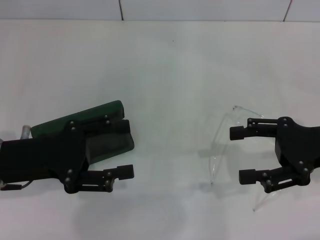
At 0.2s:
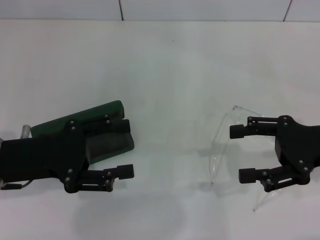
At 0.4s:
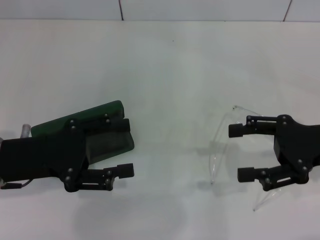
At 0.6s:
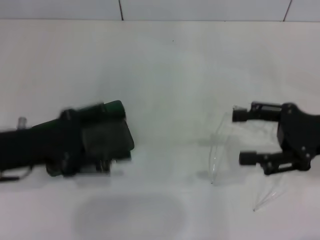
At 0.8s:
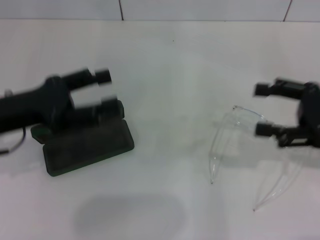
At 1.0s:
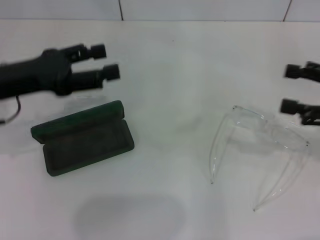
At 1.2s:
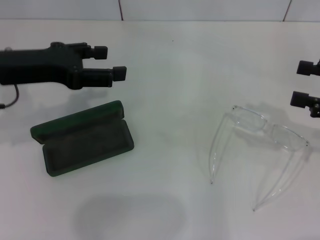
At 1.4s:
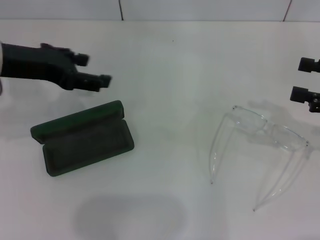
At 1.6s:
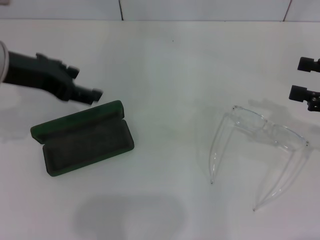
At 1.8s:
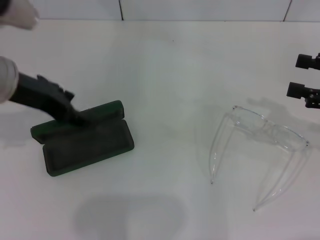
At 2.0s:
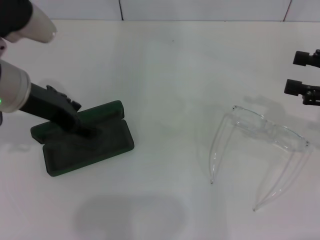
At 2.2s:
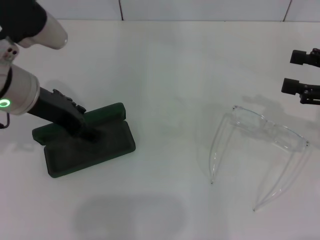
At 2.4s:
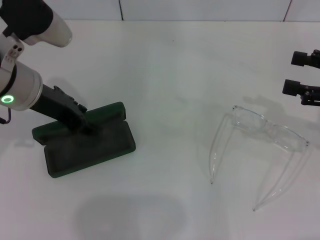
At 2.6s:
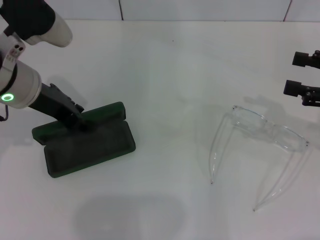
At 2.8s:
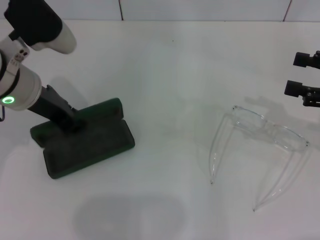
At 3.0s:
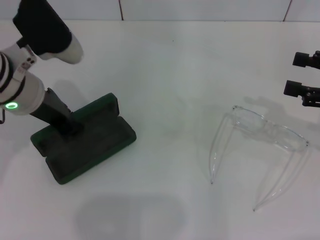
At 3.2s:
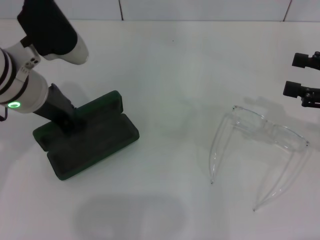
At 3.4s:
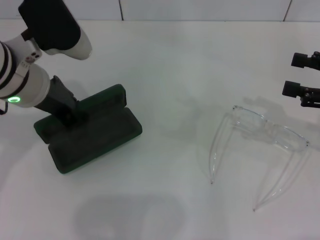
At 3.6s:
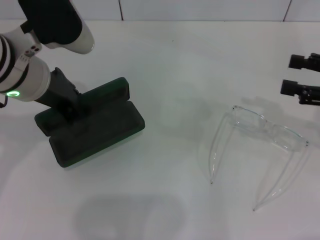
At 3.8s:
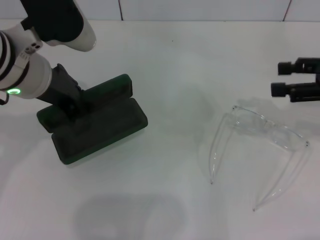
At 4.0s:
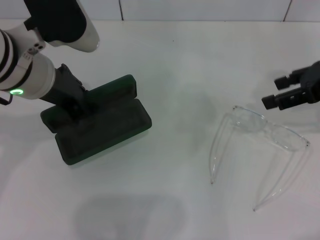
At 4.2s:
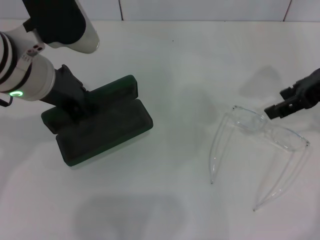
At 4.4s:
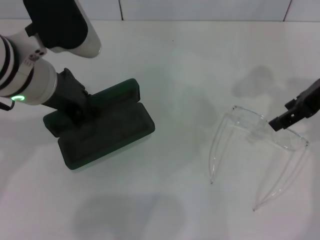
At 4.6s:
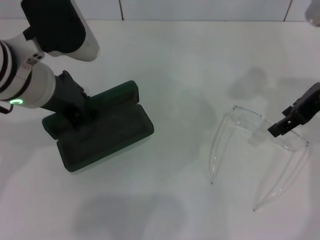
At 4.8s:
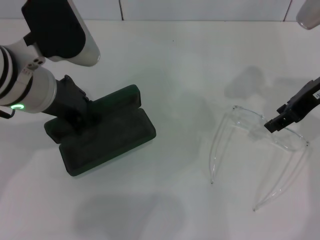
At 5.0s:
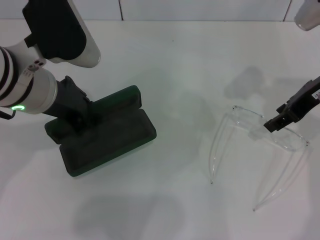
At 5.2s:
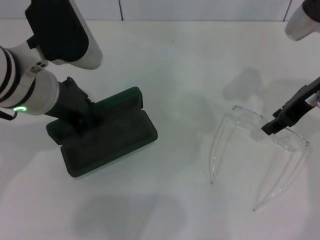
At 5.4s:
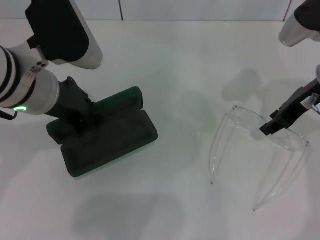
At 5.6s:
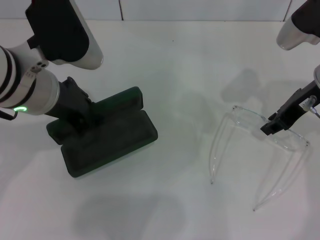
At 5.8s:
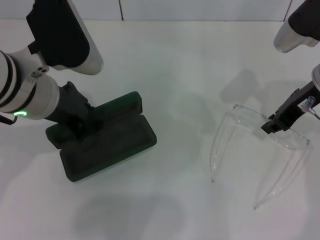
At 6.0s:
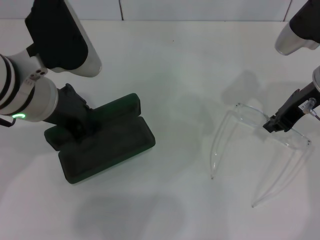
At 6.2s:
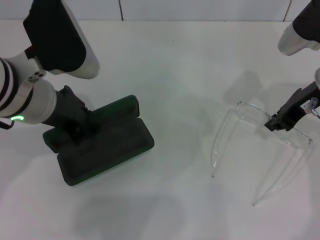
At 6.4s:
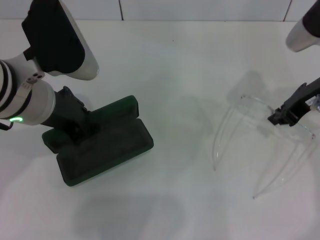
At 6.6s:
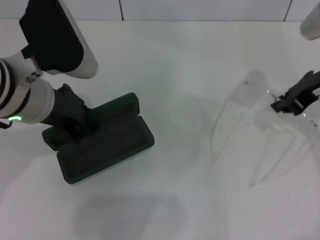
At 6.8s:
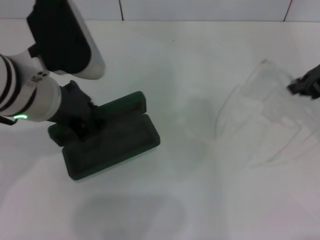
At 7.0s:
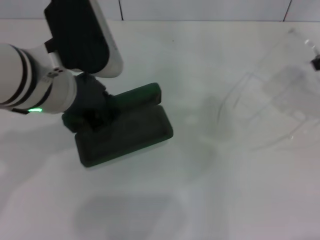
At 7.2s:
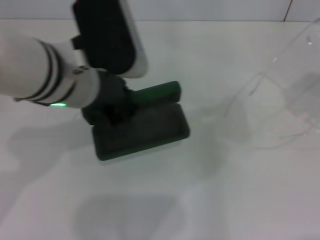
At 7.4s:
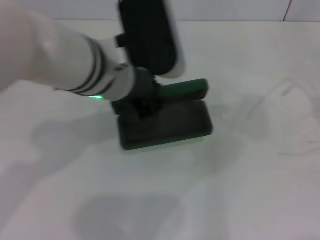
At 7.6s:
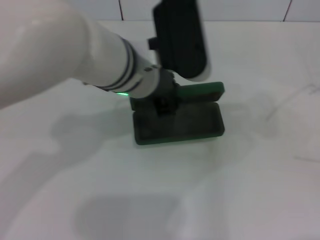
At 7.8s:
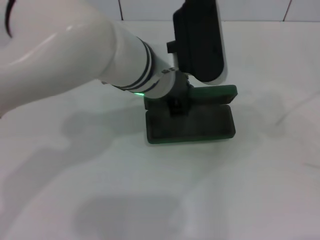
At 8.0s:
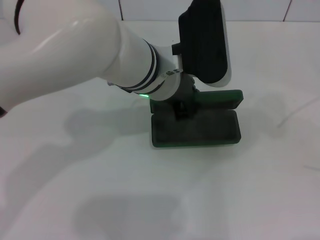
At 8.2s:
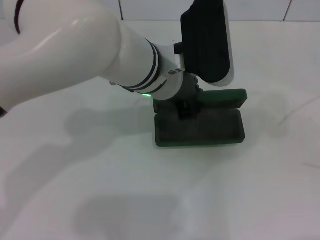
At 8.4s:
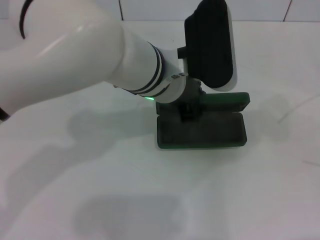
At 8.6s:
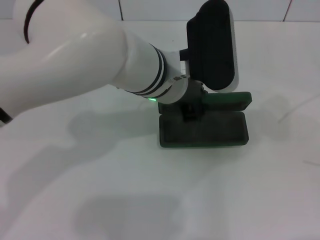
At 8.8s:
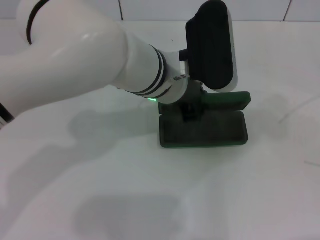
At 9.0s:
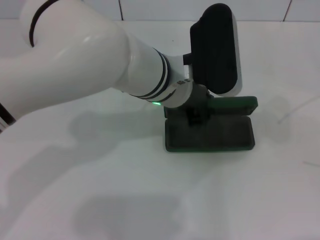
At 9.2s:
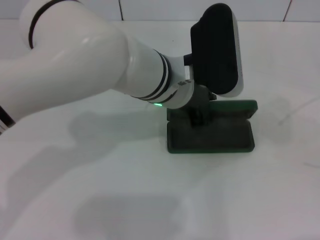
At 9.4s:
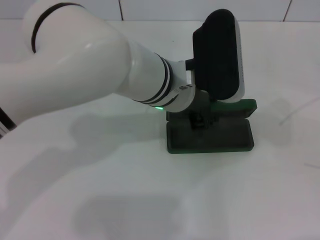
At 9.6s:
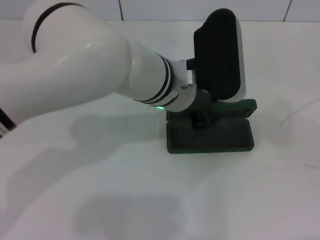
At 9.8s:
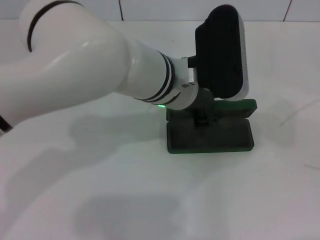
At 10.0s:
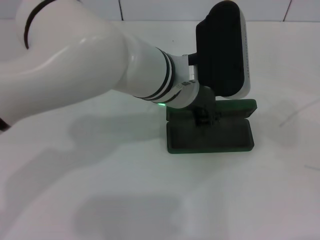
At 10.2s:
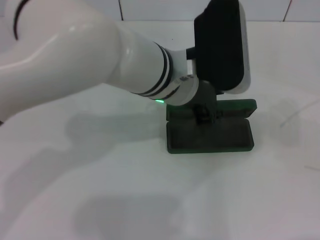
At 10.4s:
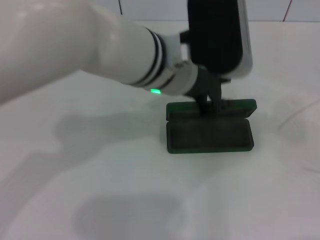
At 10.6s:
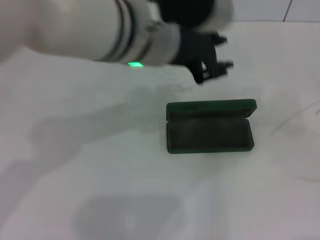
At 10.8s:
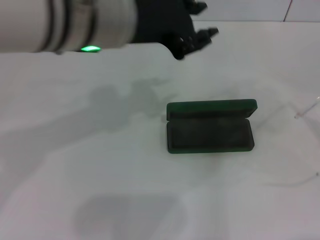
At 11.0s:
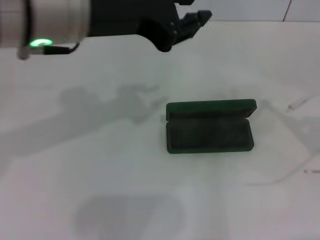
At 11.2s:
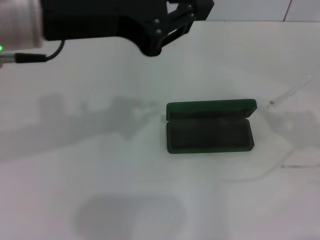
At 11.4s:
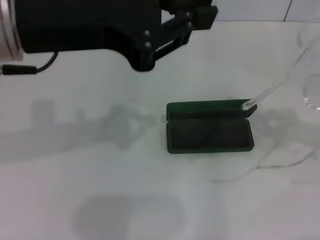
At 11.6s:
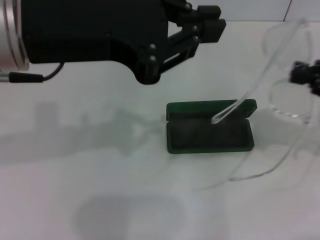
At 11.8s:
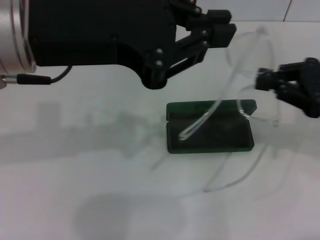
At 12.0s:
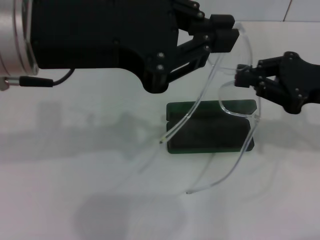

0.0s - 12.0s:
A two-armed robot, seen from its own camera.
Step, 0.0s - 2.8s: Grab the glasses case with your left hand.
Step, 3.2s - 5.8s: Grab the eyeglass frame with your right hand.
Step, 6.0s - 9.4s: Place the glasses case in the center of the table with your left hand.
0.0s - 1.6s: The left gripper goes some 15 cm upward and forward, while the right gripper is displaced to the right by about 5 cm.
1.6s - 3.0s: The left gripper moves some 5 cm, and closes.
3.0s - 4.4s: The right gripper heads to the left, forward and upward, covering some 15 cm. The left gripper ends up some 5 cm from where it was.
4.4s - 6.0s: The right gripper moves downward, approximately 5 cm, and closes up.
6.0s - 7.6s: The right gripper shifts roughly 25 cm to the right, backward and upward, while the left gripper travels to the right by about 10 cm.
9.0s - 10.4s: The left gripper shifts by about 5 cm.
10.4s - 12.0s: The right gripper goes roughly 20 cm to the left and forward; the left gripper goes approximately 15 cm to the left, upward and backward, and closes.

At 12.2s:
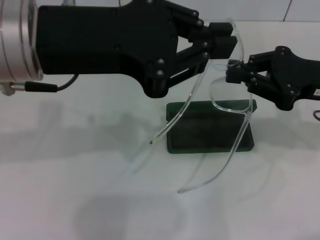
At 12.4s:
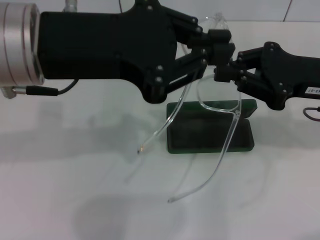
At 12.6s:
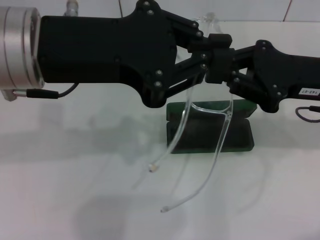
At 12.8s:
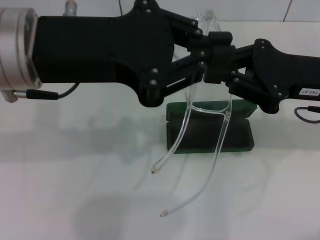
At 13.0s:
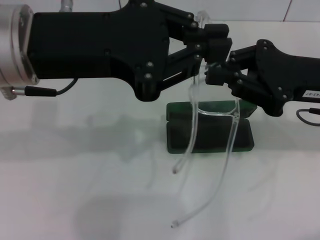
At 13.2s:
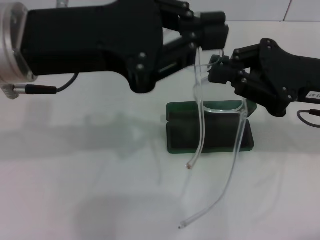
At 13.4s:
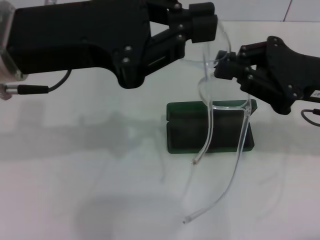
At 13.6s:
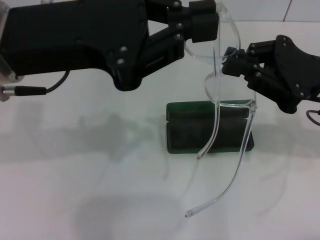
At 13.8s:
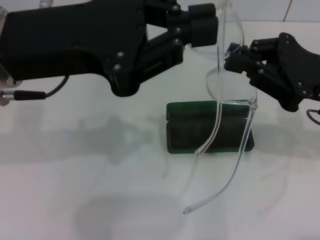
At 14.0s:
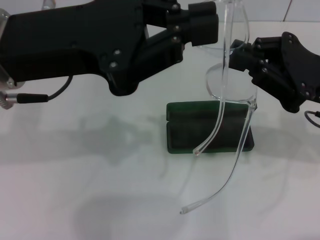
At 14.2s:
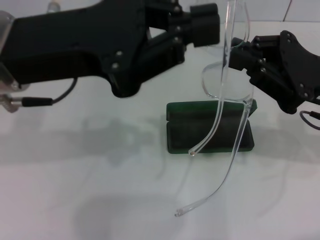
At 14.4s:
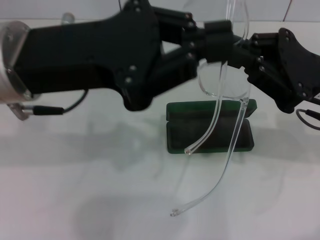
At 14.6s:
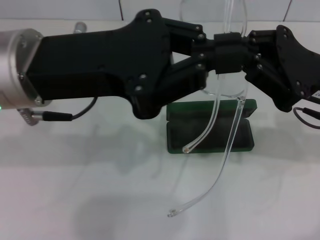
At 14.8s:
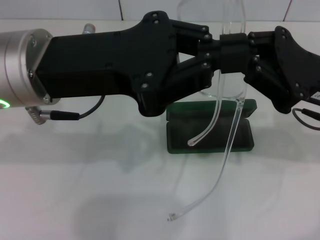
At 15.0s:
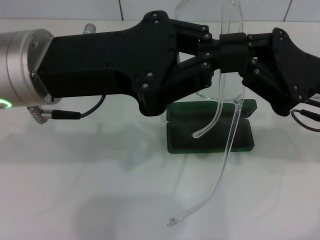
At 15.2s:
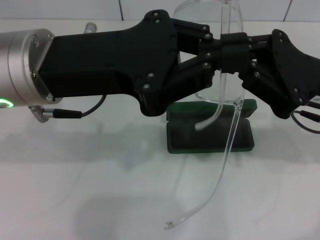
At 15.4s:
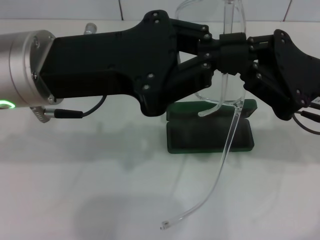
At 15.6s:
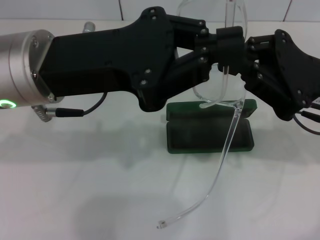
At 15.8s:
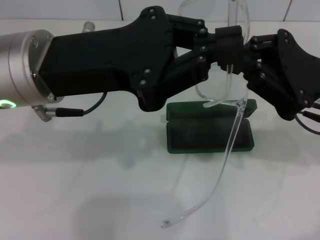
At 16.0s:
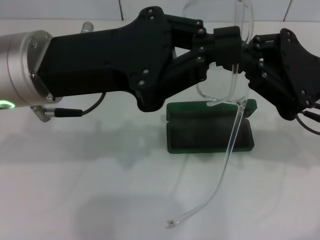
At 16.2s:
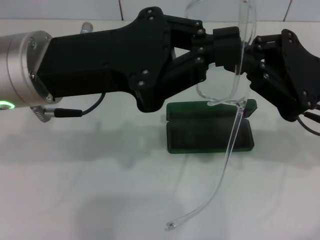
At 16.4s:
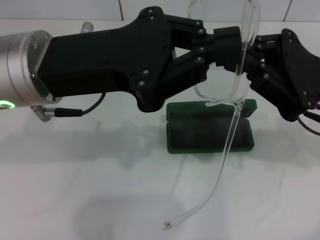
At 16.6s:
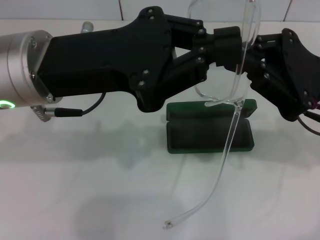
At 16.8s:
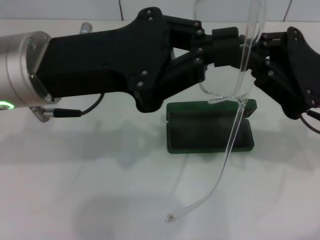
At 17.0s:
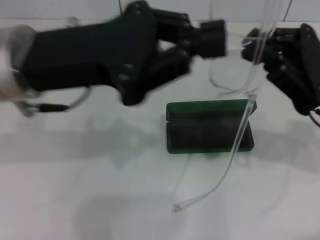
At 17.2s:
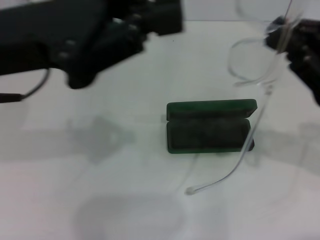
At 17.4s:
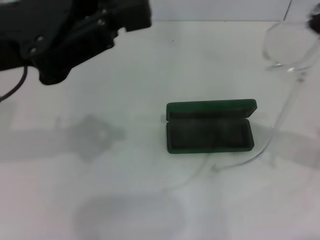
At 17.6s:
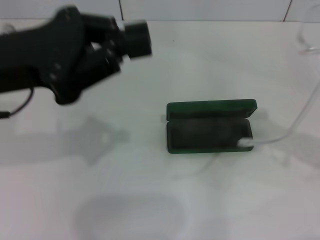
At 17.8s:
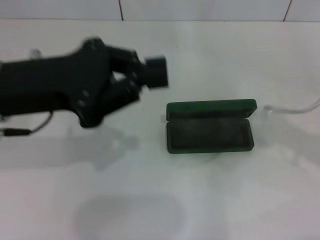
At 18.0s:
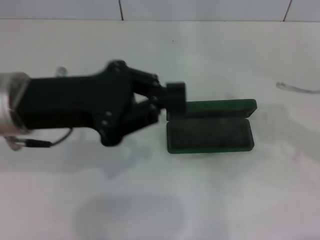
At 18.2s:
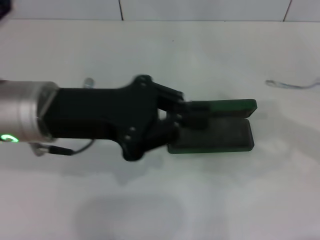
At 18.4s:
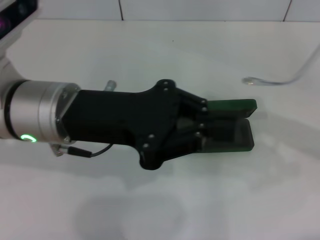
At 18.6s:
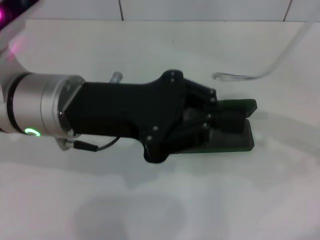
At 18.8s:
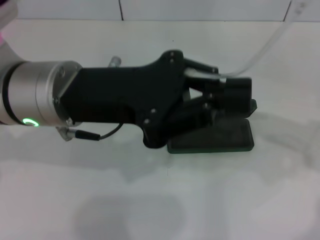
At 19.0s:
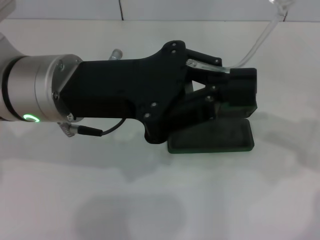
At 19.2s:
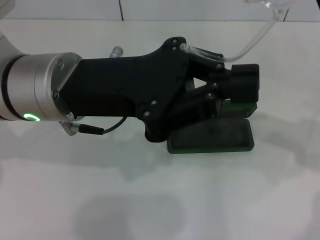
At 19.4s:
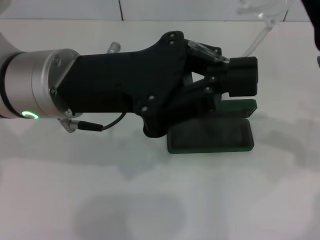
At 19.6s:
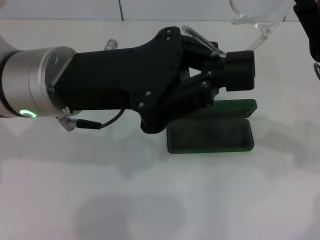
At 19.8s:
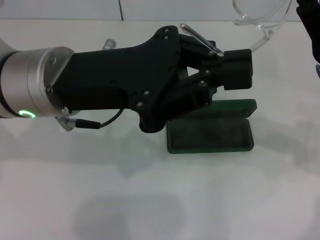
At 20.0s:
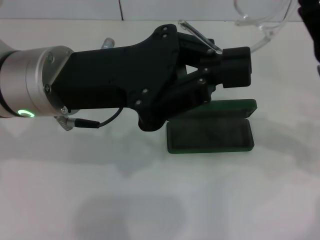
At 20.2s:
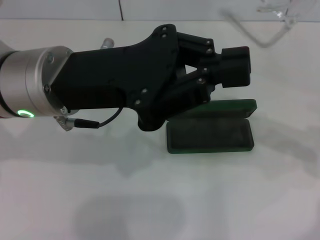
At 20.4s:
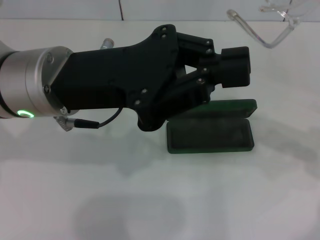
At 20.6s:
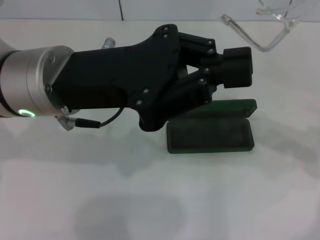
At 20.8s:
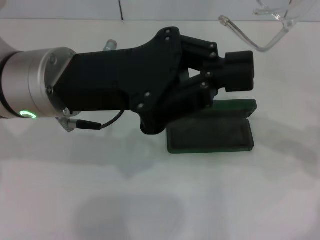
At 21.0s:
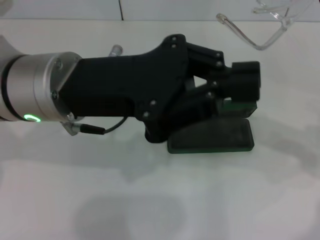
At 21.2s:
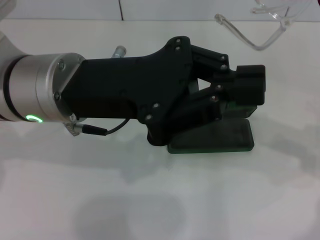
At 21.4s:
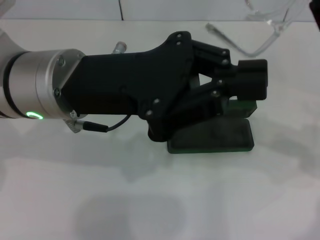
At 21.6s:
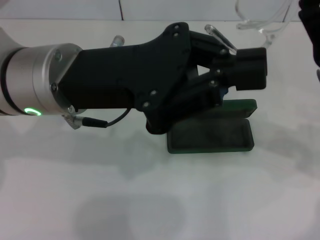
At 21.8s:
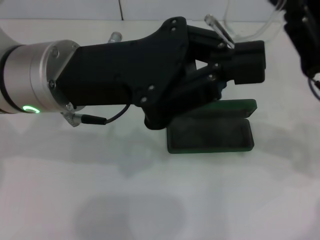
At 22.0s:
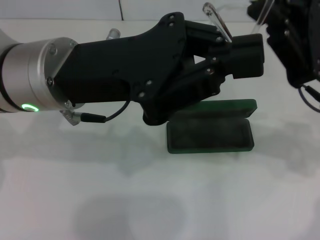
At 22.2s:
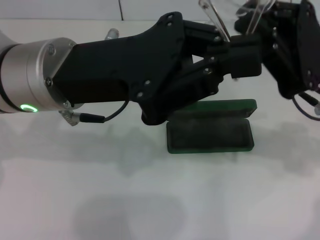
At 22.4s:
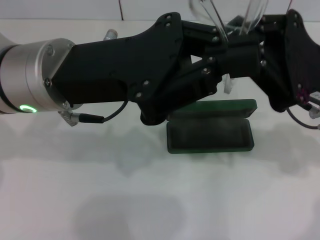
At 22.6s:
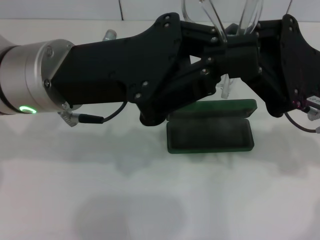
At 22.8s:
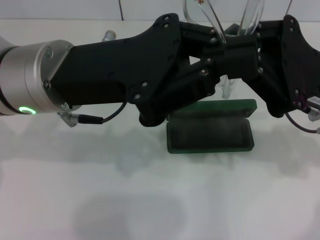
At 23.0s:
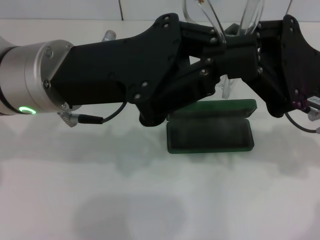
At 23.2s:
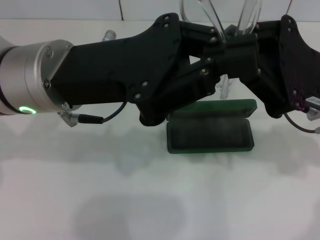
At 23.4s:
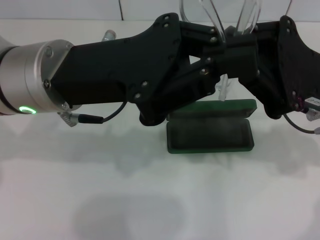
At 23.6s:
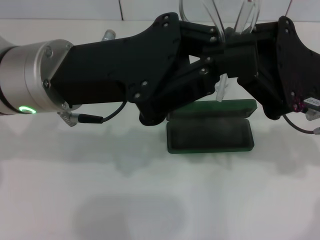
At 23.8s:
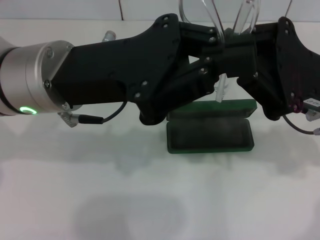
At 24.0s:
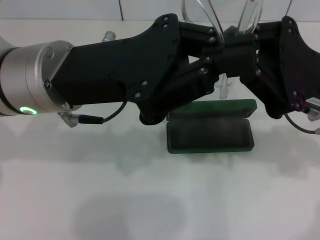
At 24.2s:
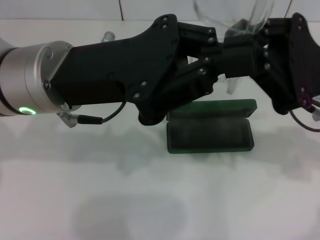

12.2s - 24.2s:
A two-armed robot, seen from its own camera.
12.2s - 13.8s: The grippers move only a little.
15.2s - 16.6s: The two grippers keep their place.
16.6s - 18.2s: The left gripper shifts by approximately 5 cm; the right gripper moves to the right, about 10 cm.
18.2s - 19.8s: The right gripper moves to the left, roughly 5 cm.
19.8s - 21.2s: The grippers move only a little.
22.6s - 24.2s: Both grippers stay put.
